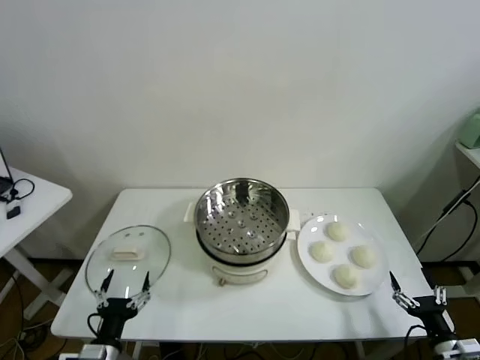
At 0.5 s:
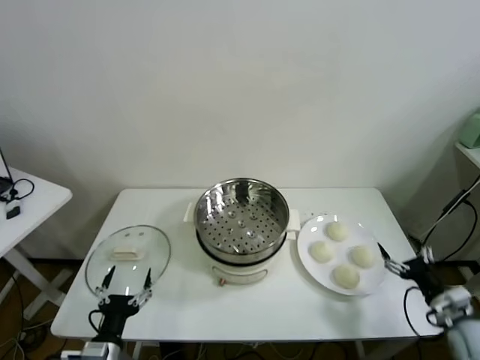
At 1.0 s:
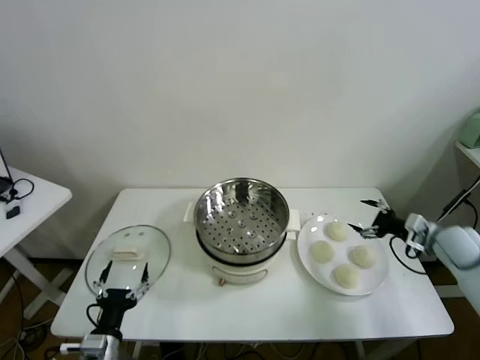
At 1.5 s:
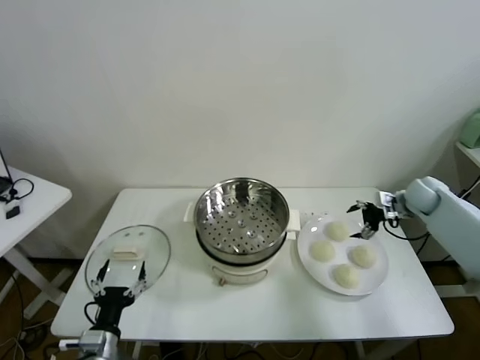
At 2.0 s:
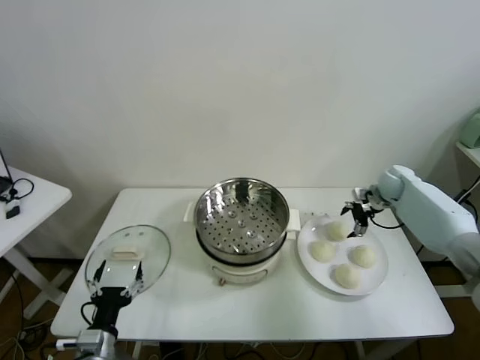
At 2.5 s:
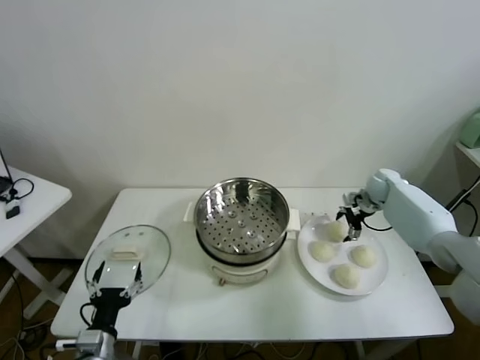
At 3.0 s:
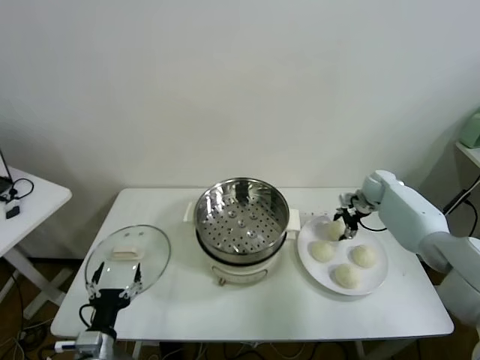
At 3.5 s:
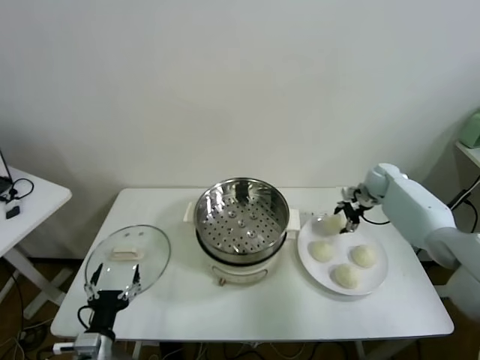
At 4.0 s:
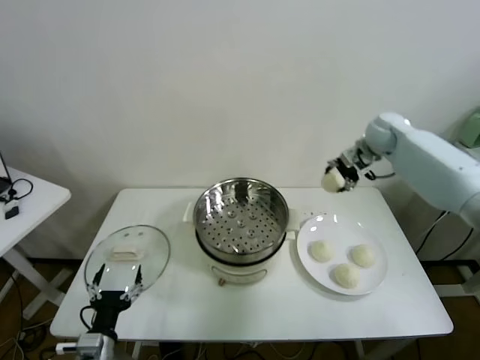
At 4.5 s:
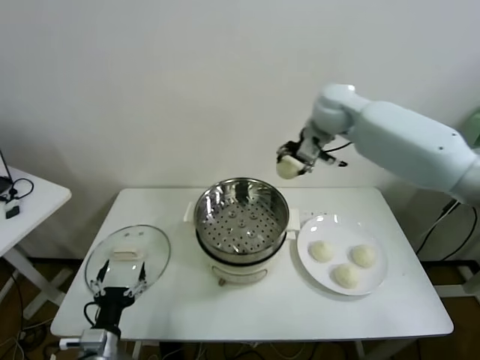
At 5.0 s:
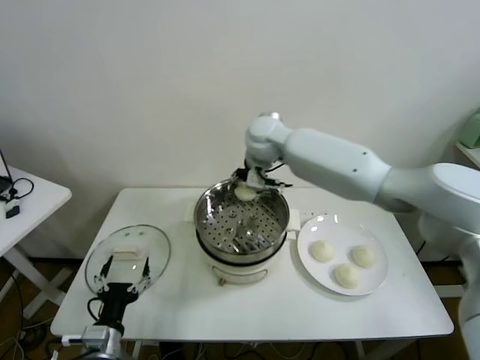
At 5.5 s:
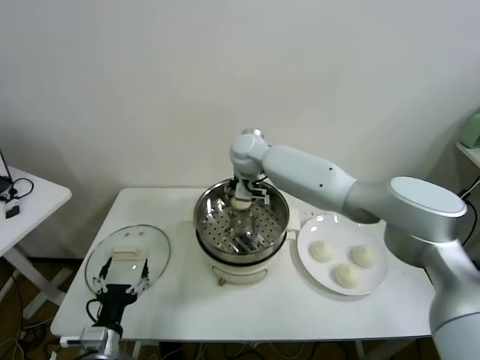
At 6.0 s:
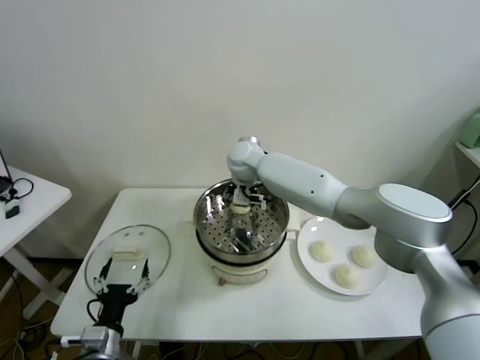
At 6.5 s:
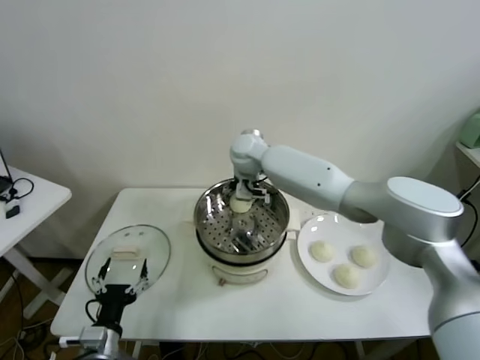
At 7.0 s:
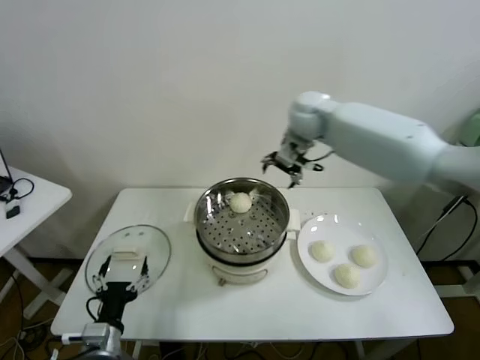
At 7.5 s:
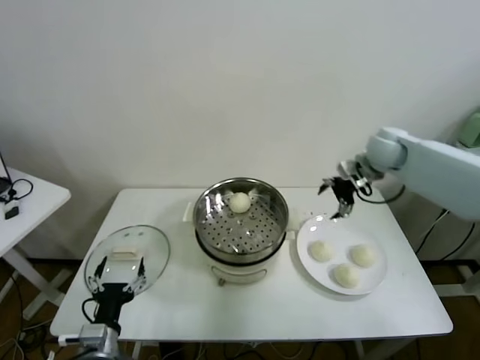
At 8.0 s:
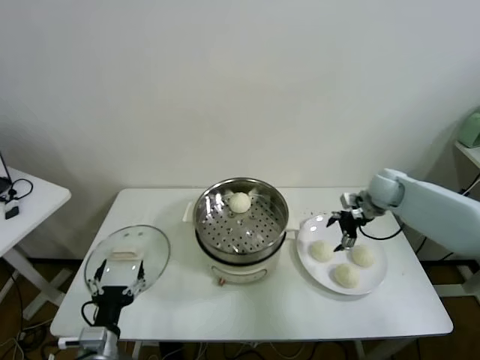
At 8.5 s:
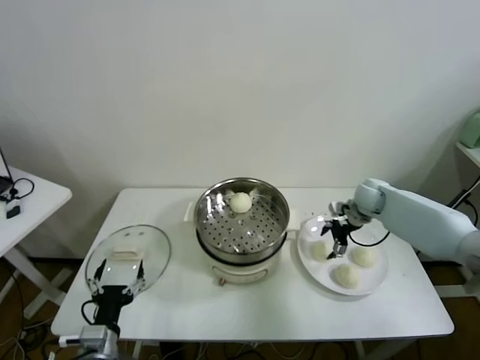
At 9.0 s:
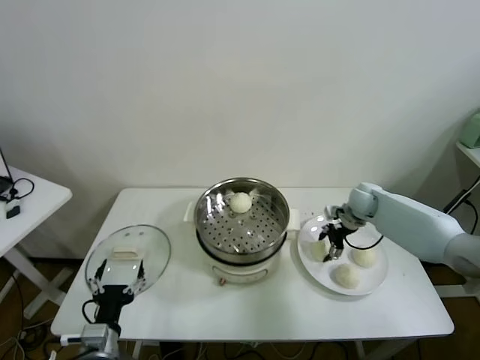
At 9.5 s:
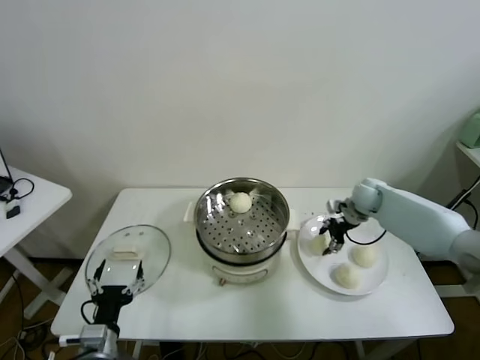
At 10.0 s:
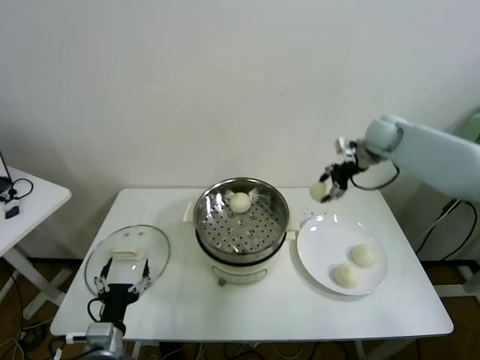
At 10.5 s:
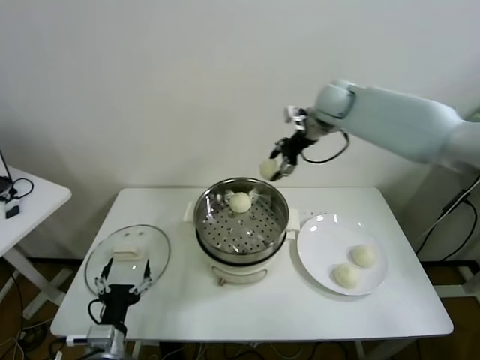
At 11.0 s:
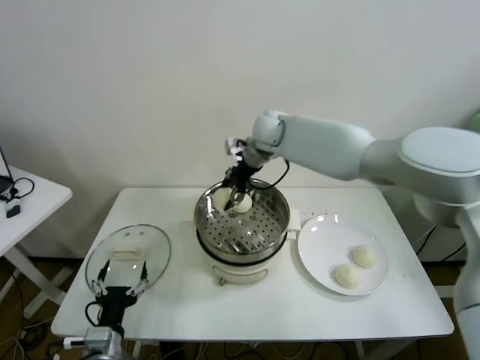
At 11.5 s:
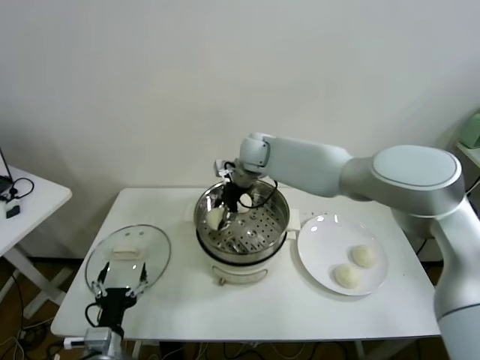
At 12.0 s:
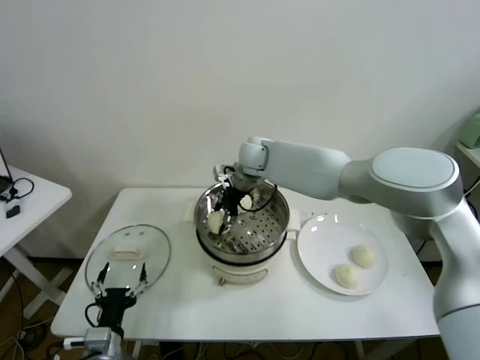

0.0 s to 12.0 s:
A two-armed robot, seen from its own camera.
Task of the whole recording: take steamed baozi put them in steamer.
Step, 0.0 to 3.0 s: Grasp the baozi in the plate with right gripper.
Step, 3.5 to 6.0 s: Place the baozi on the steamer with right gripper.
Step, 7.0 to 9.0 s: Grasp the baozi in the plate with right gripper.
2.0 to 4.0 s: The right gripper travels upward and to the left by some 20 cm, and closes up.
4.0 to 6.0 s: The right gripper heads to the left, covering roughly 30 cm, and opens up.
6.0 to 8.0 s: The right gripper heads to the right, covering roughly 35 cm.
8.0 to 10.0 s: The right gripper goes approximately 15 cm upward, and closes its fingers.
10.0 to 12.0 s: The right gripper heads to the left, covering about 30 cm.

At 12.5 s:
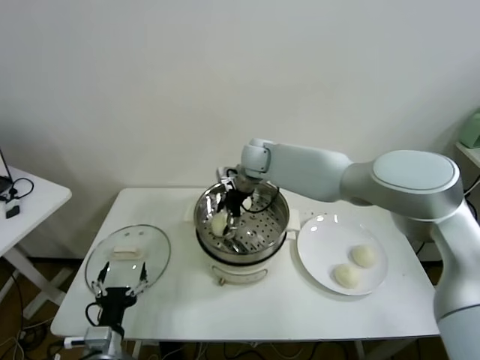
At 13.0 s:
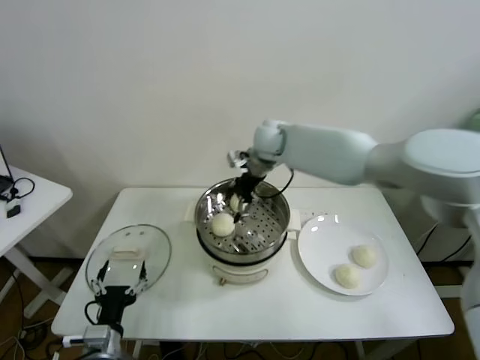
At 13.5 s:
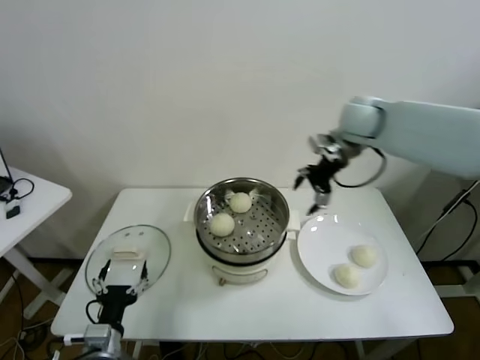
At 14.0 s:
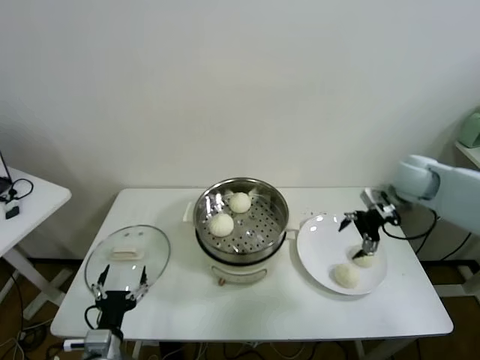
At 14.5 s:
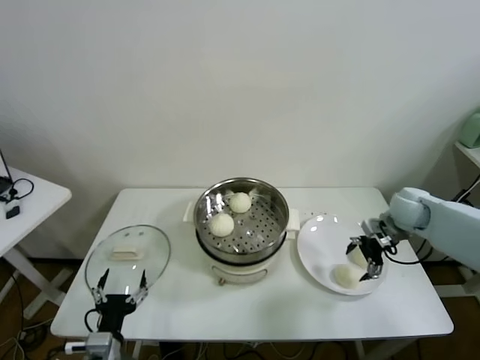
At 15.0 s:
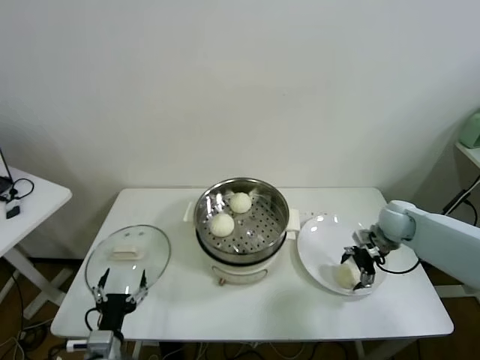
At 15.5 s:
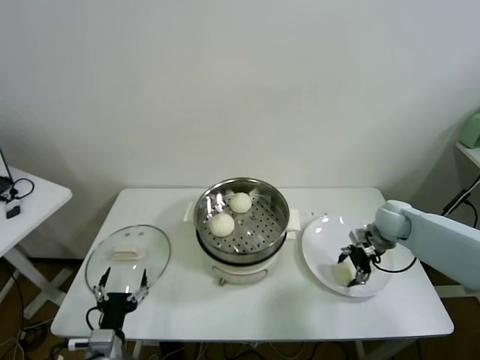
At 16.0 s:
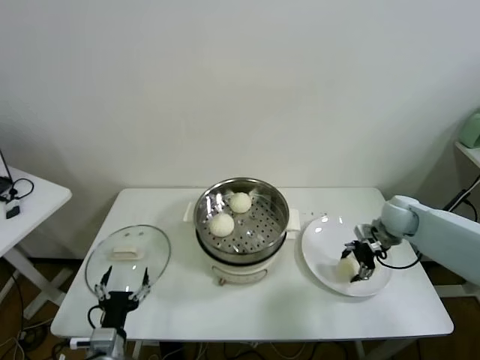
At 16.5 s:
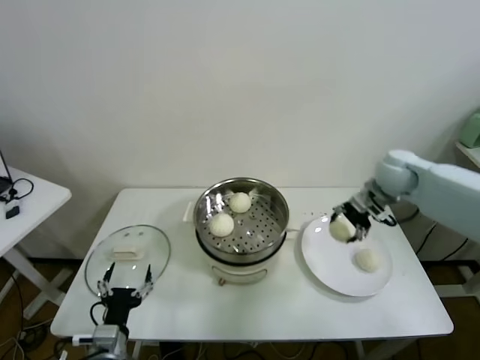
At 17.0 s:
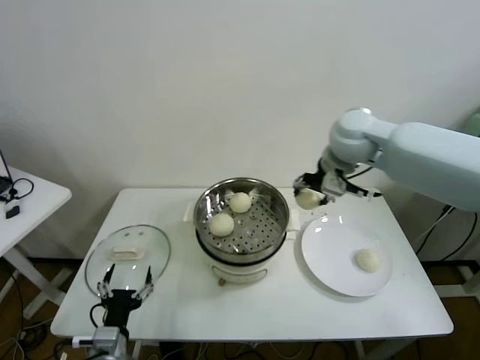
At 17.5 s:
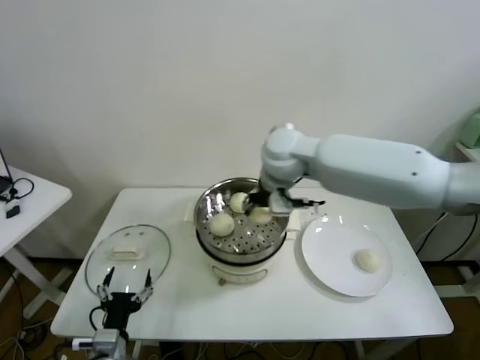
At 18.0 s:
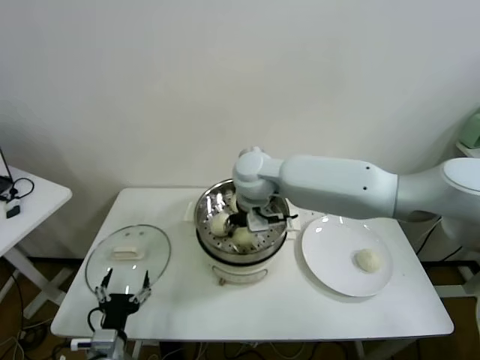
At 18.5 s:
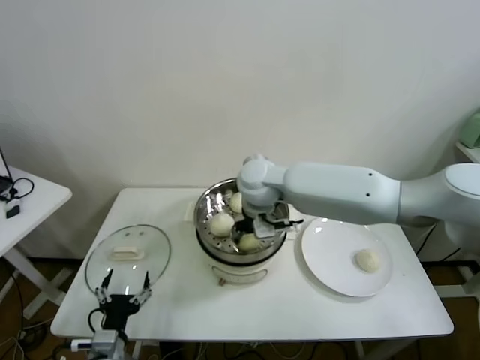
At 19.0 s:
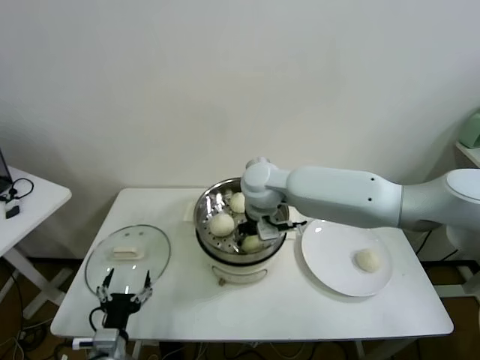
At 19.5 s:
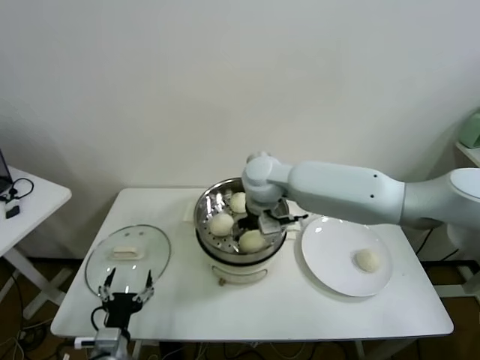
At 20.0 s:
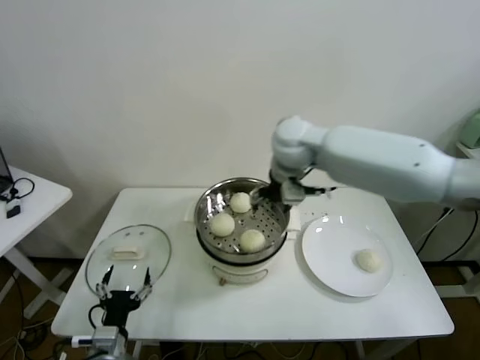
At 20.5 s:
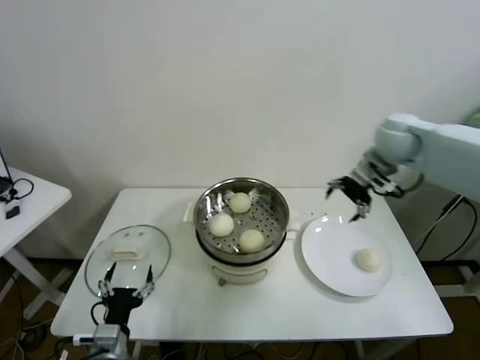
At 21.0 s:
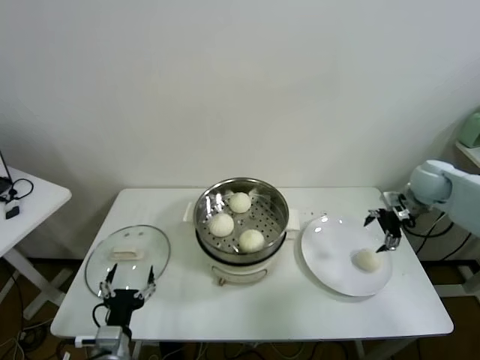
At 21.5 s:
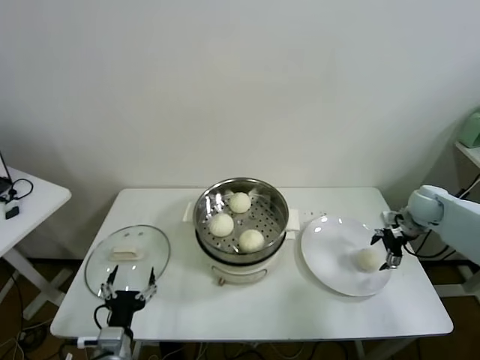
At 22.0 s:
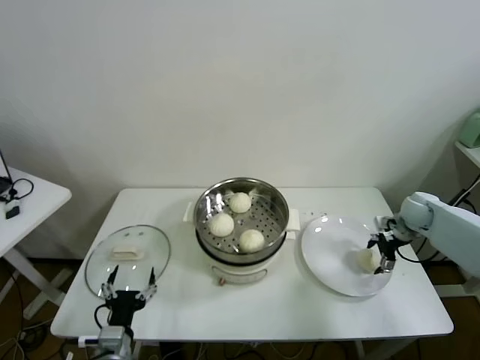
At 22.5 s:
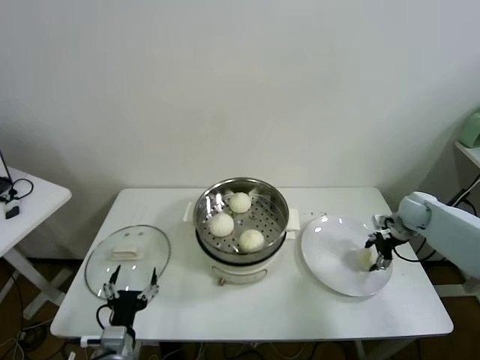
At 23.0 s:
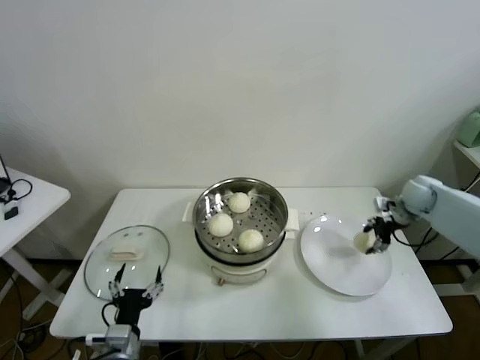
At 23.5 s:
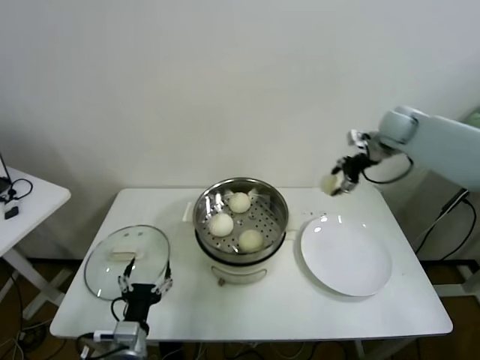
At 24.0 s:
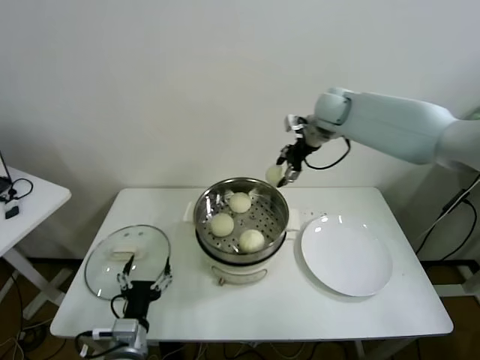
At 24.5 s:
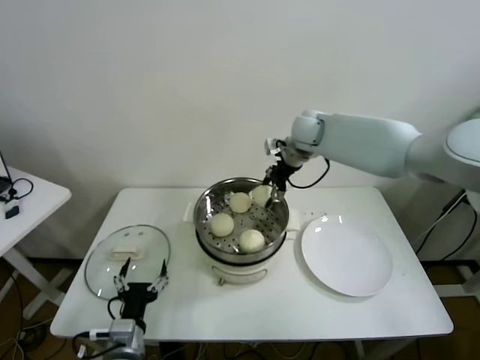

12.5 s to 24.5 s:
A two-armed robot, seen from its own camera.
Task of the whole recording: take steamed baozi put them in steamer.
Step, 13.0 to 15.5 s: Grasp the baozi in the plate with right gripper.
Step, 16.0 to 19.5 s: Place the baozi on the steamer with right gripper.
Step, 20.0 to 22.5 s: Grasp the baozi in the plate with right gripper.
12.5 to 14.5 s: The right gripper is displaced to the right by some 35 cm.
14.5 to 16.5 s: The right gripper travels upward and to the left by approximately 10 cm, and closes up.
16.5 to 18.5 s: The right gripper moves to the left, approximately 30 cm.
18.5 to 20.5 s: The right gripper travels to the right by roughly 30 cm, and opens.
20.5 to 22.5 s: The right gripper heads downward and to the right, covering approximately 25 cm, and closes up.
22.5 to 24.5 s: The right gripper shifts roughly 35 cm to the left and upward.

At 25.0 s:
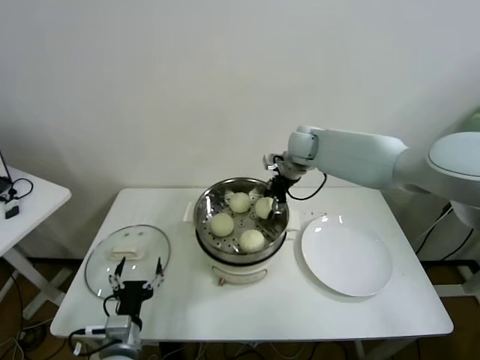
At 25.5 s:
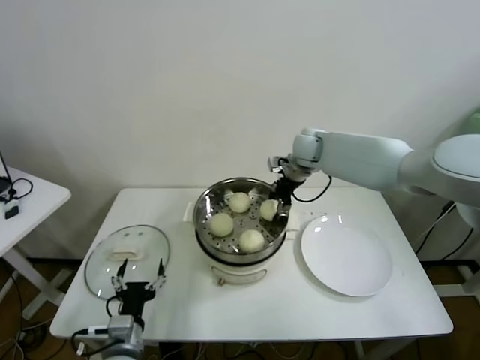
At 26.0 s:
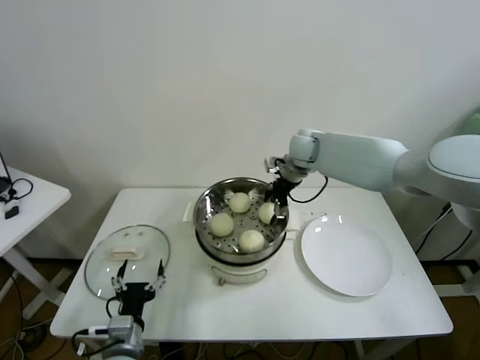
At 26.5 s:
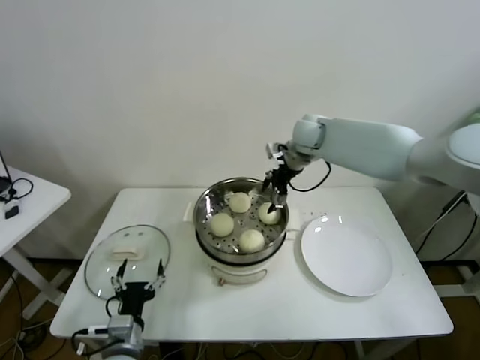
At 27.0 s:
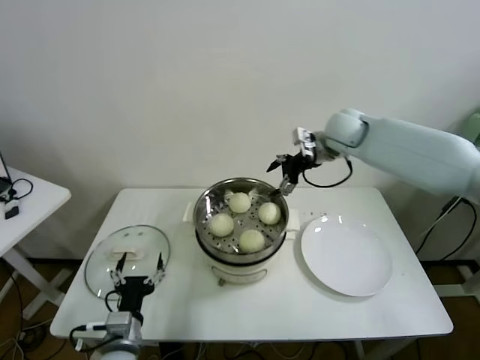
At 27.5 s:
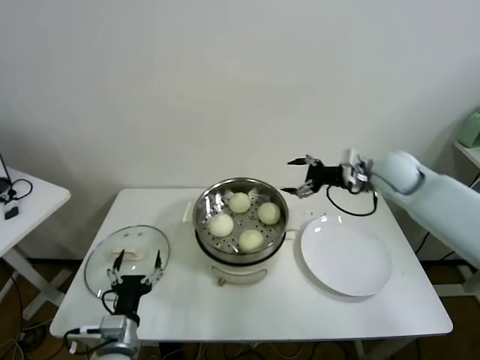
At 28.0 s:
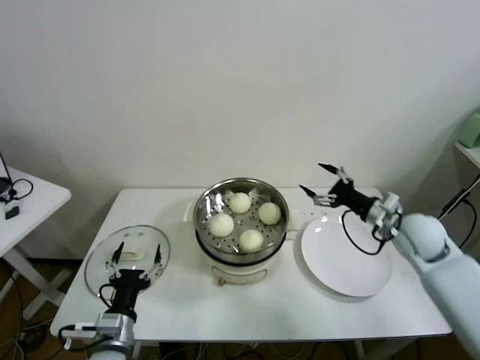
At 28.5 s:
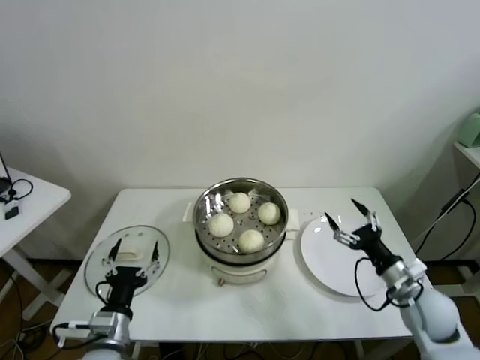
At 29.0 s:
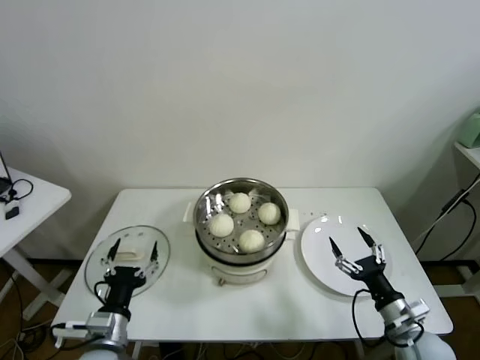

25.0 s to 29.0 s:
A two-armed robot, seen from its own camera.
Task of the whole recording: take steamed baozi put them in steamer.
25.0 to 27.0 s: The right gripper goes roughly 10 cm to the right and upward, and opens up.
27.0 to 29.0 s: The right gripper goes some 50 cm backward and downward.